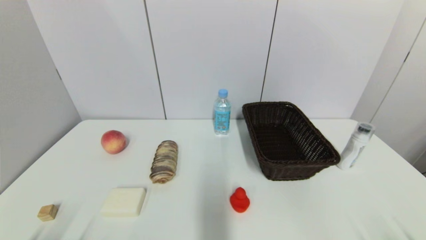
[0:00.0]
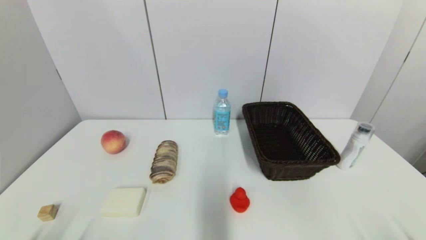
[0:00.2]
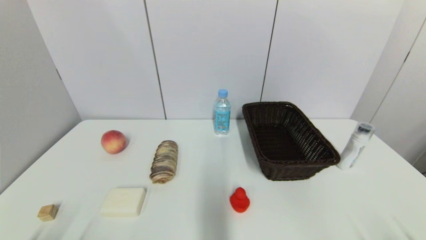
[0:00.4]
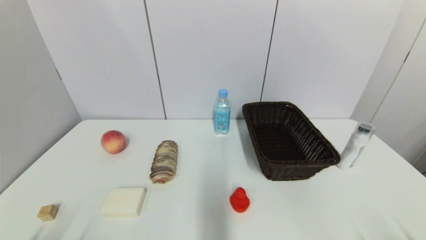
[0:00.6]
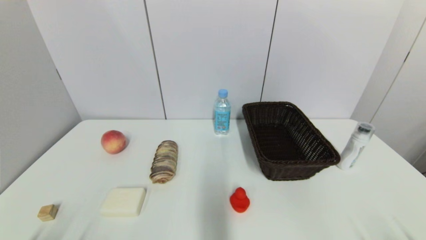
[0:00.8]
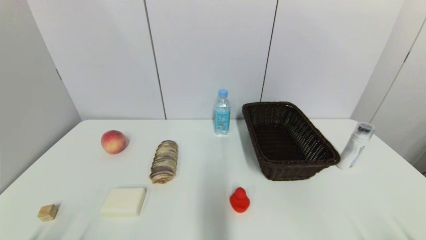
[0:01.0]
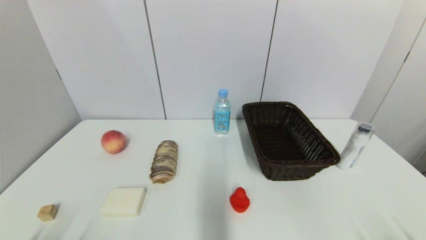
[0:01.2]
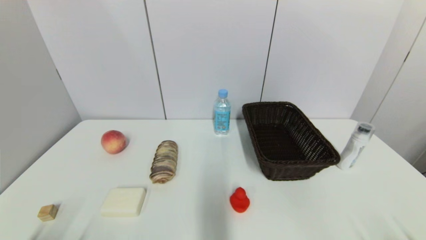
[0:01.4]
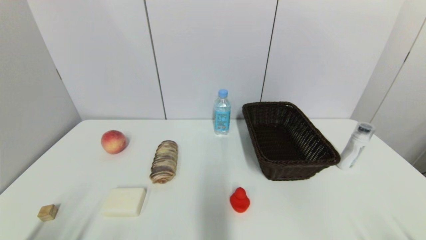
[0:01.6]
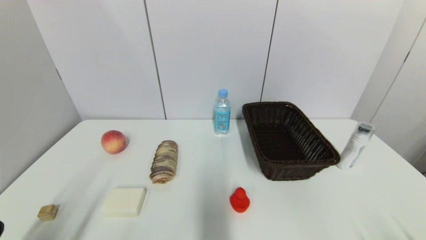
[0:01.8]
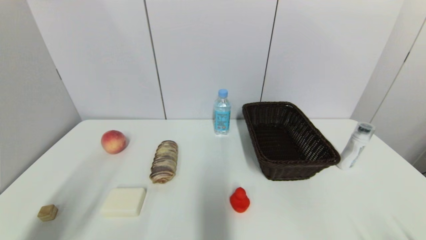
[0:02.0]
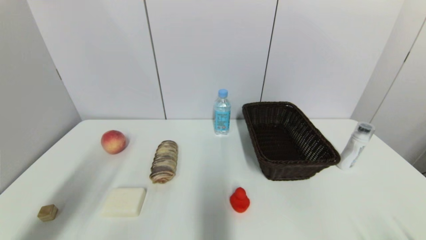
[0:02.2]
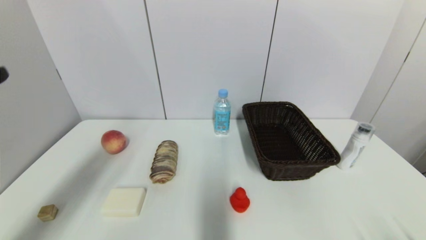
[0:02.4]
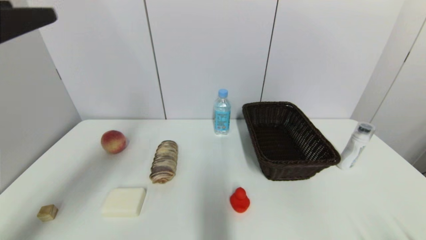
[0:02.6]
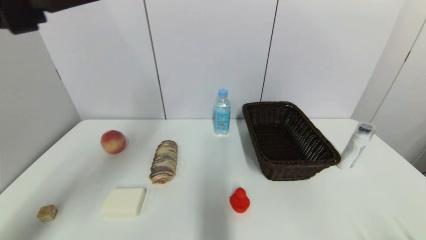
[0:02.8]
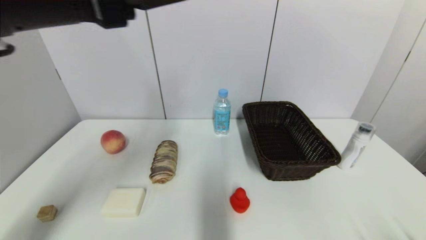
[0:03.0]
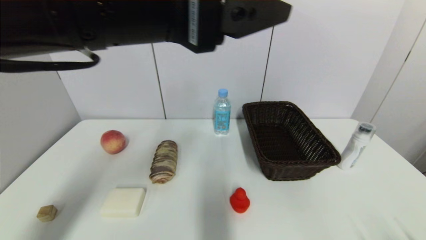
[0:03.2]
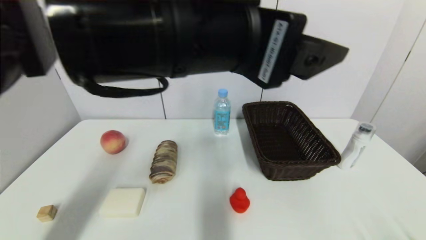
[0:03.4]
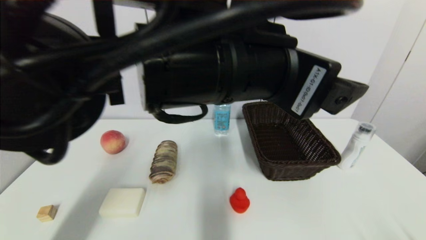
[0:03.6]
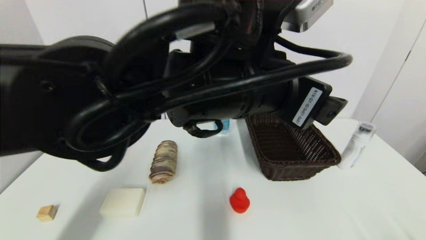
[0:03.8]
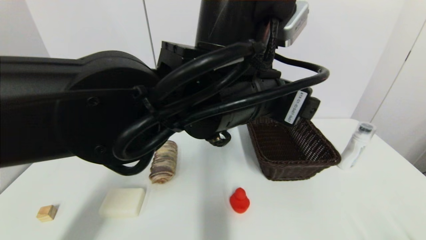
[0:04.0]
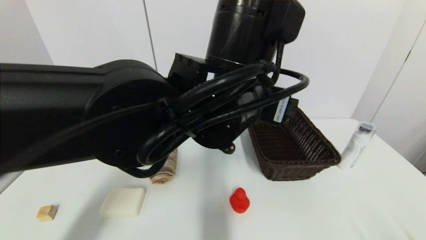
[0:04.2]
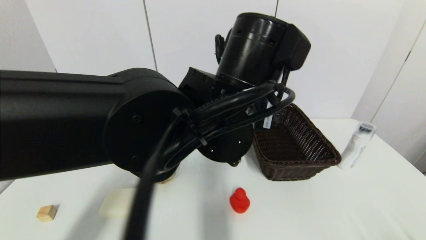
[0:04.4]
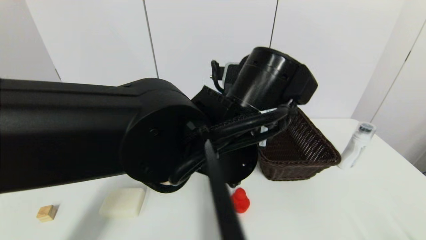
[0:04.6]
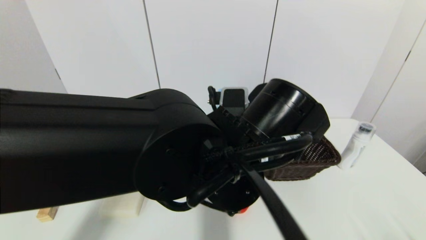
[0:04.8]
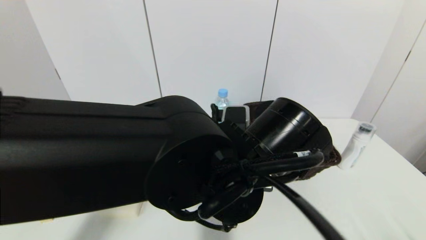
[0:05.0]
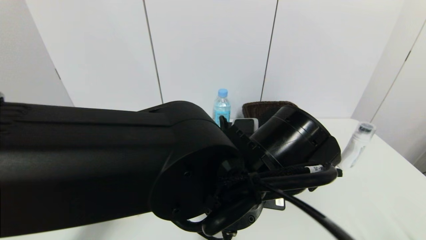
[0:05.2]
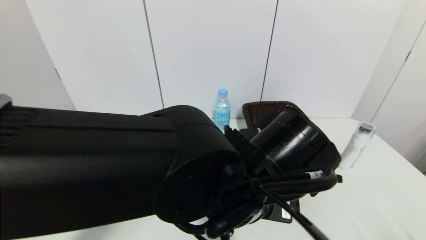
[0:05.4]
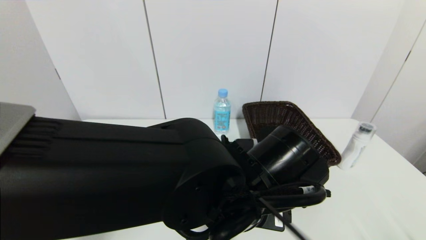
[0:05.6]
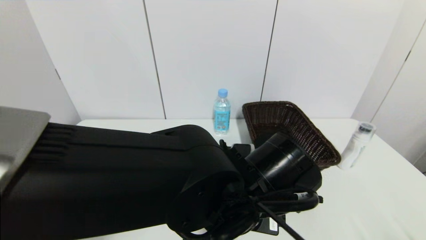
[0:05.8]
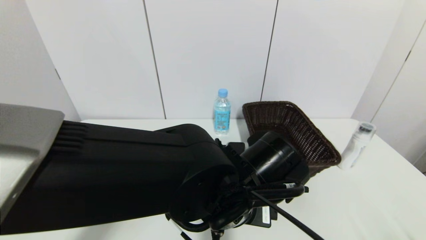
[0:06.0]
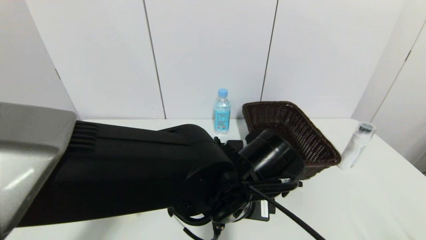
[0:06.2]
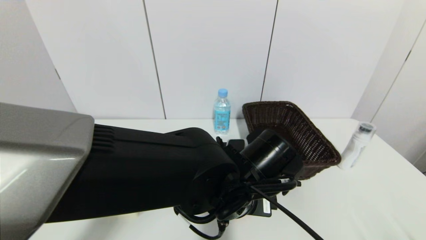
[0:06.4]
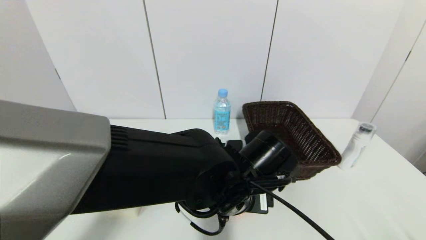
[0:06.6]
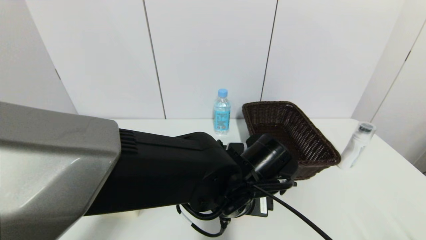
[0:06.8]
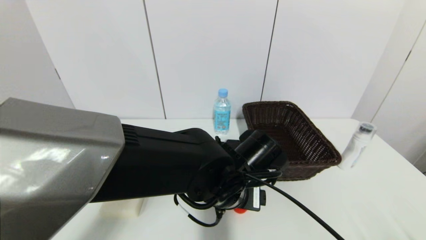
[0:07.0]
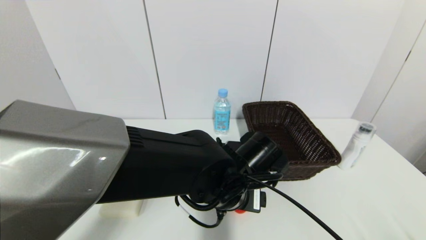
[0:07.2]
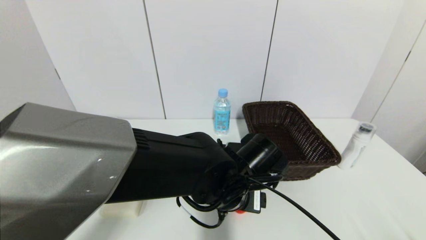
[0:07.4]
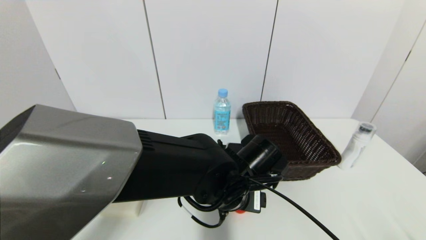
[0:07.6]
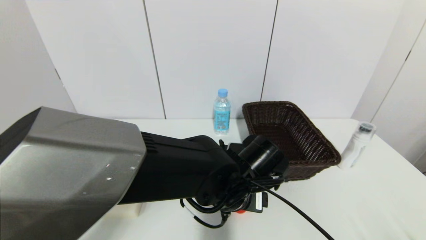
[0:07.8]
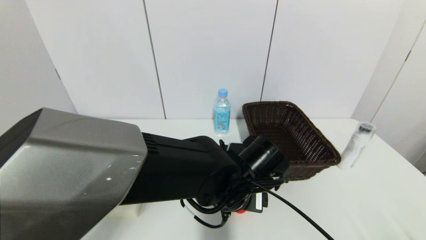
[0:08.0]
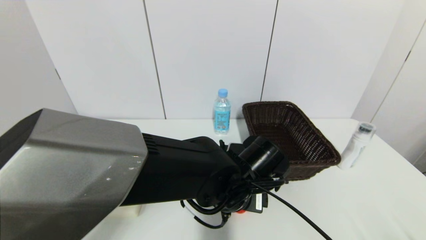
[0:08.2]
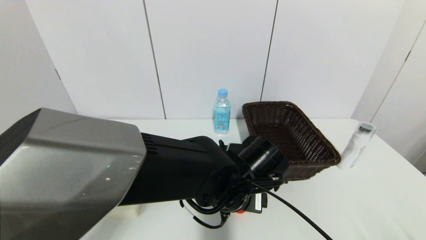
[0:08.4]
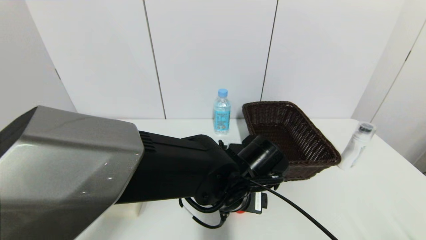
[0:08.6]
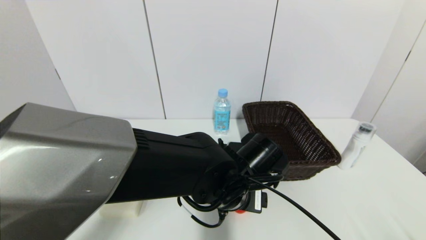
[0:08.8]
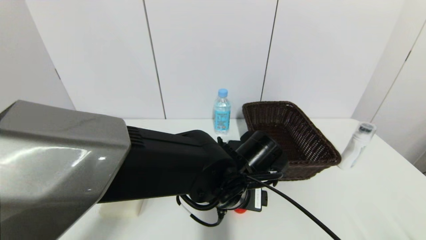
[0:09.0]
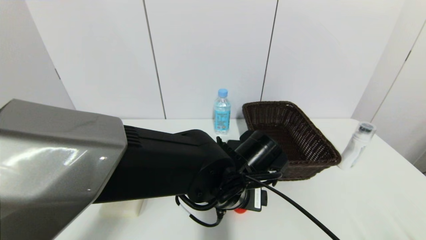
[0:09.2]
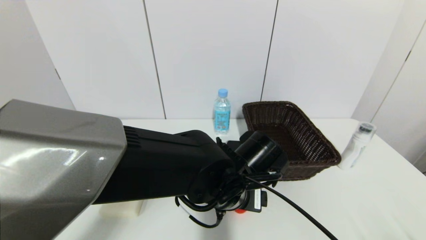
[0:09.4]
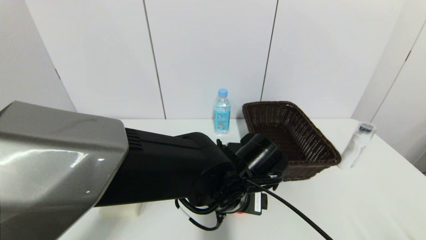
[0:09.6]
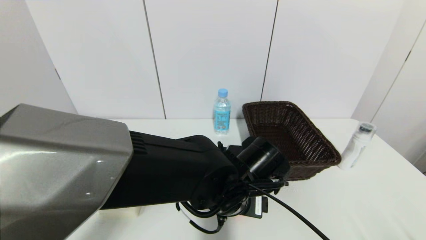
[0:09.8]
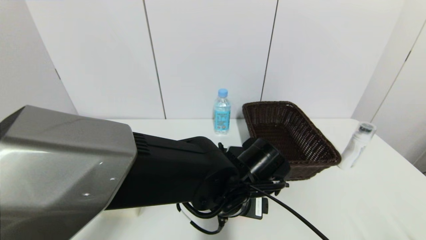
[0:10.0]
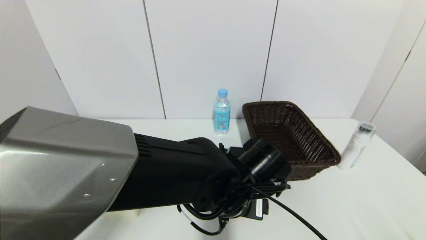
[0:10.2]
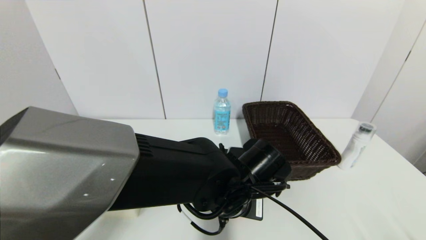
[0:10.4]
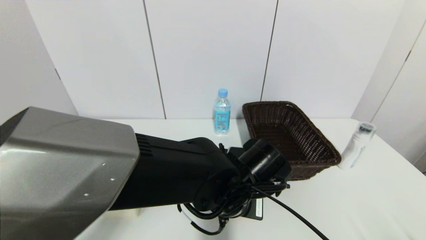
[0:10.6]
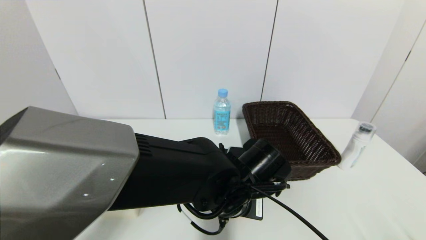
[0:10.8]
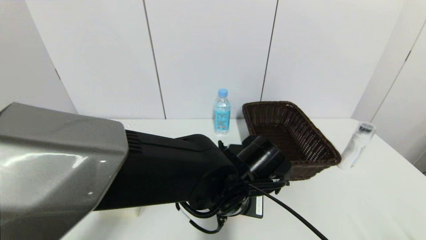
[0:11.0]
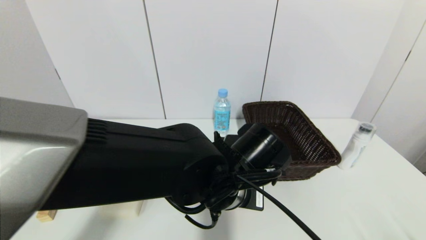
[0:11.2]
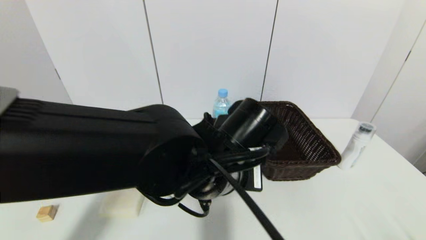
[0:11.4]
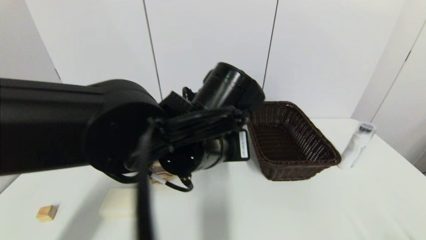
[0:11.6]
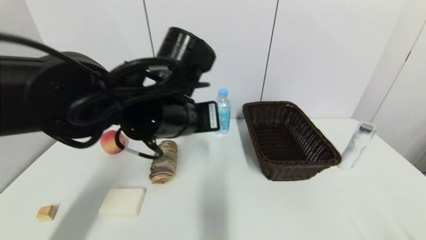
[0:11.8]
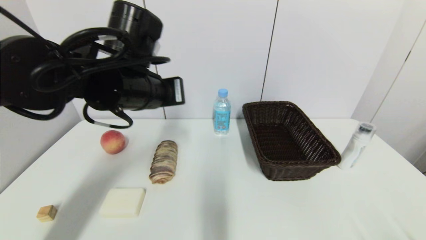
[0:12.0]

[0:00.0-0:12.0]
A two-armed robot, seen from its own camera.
Step, 0:01.8 to 0:11.0: Grasp the red duck with left gripper.
0:01.6 to 0:03.0: The left gripper moves upward, forward and to the right, about 35 cm.
0:03.0 to 0:04.4: The left gripper shifts some 20 cm to the right and downward.
0:04.4 to 0:06.0: The left gripper moves downward, some 10 cm.
0:06.0 to 0:07.6: The left gripper ends up roughly 5 cm from where it was.
0:07.6 to 0:09.0: Both grippers stay about where they are.
0:09.0 to 0:10.4: The left gripper closes up.
0:10.4 to 0:12.0: The left gripper heads upward, to the left and forward, covering some 25 cm, and closes up.

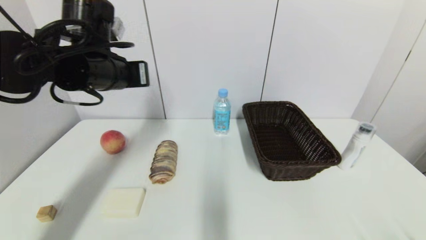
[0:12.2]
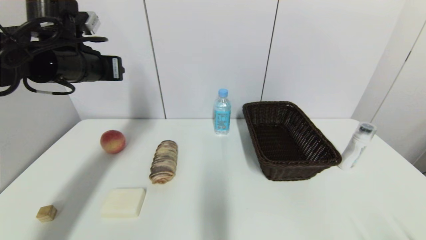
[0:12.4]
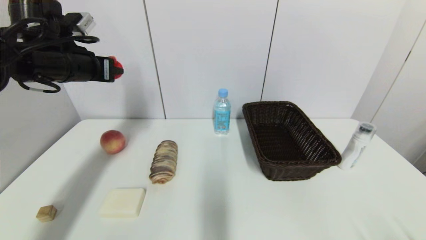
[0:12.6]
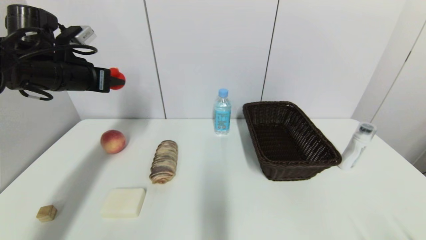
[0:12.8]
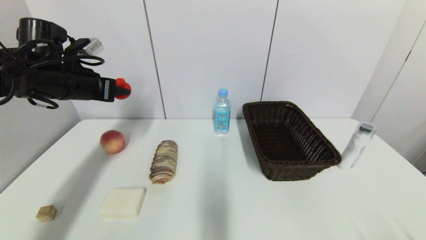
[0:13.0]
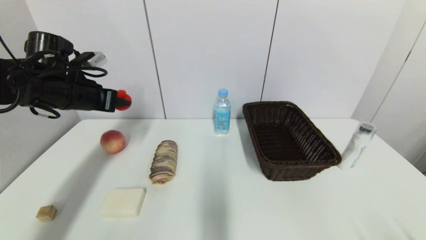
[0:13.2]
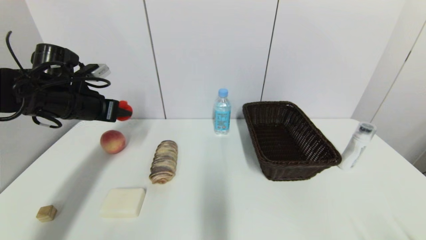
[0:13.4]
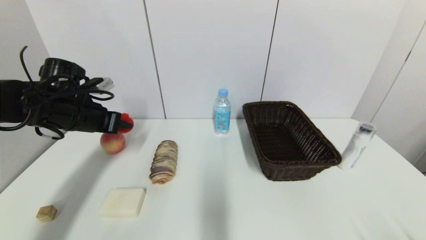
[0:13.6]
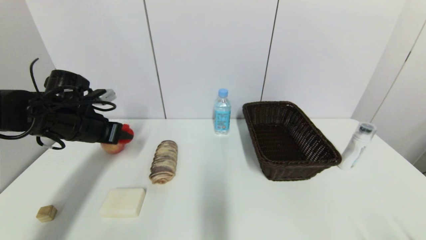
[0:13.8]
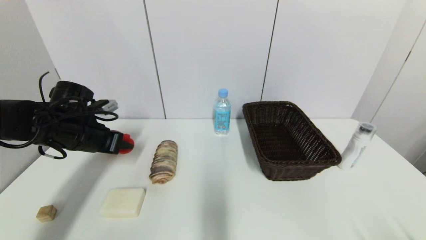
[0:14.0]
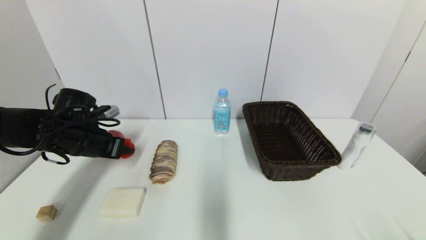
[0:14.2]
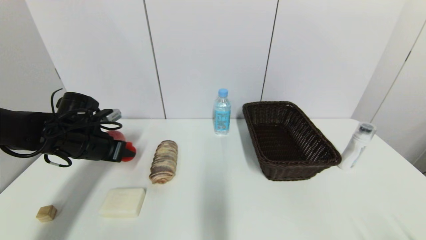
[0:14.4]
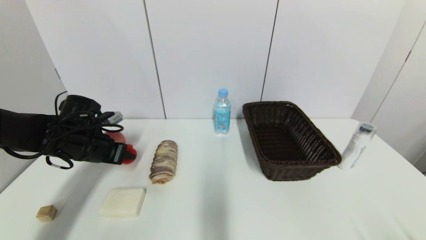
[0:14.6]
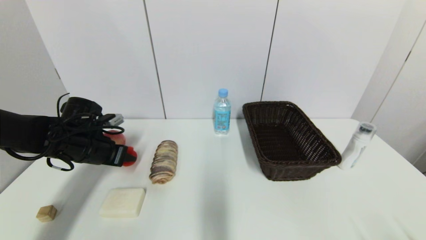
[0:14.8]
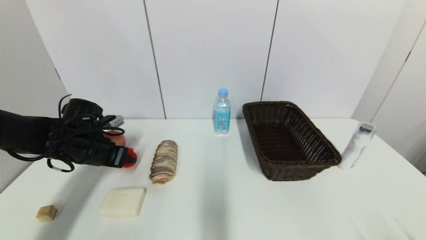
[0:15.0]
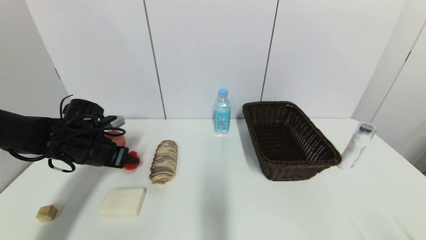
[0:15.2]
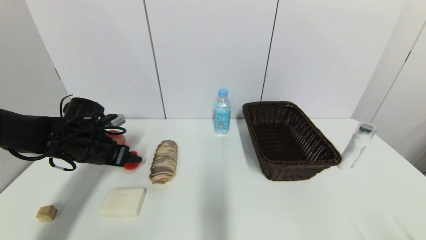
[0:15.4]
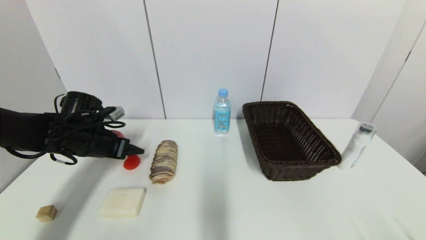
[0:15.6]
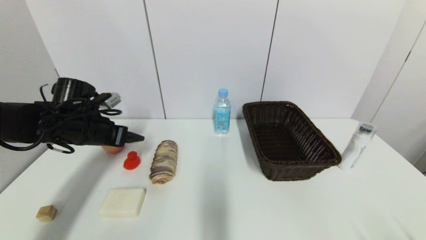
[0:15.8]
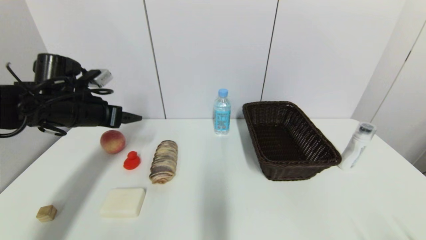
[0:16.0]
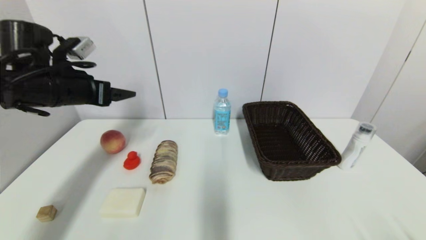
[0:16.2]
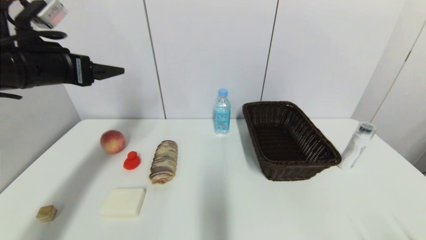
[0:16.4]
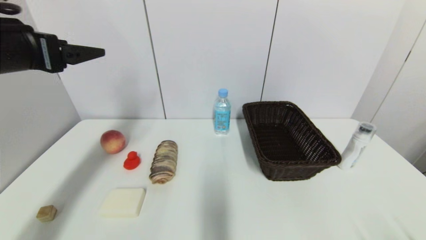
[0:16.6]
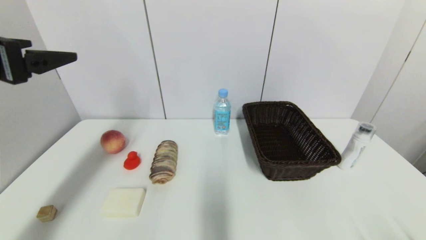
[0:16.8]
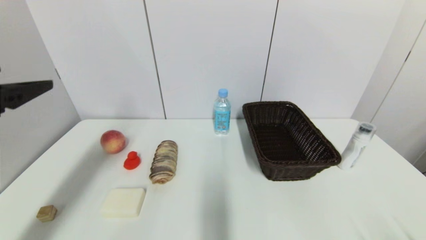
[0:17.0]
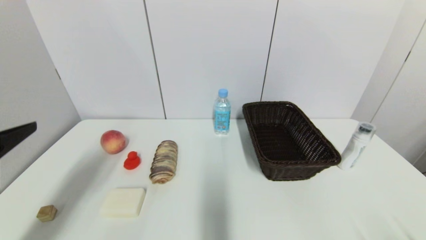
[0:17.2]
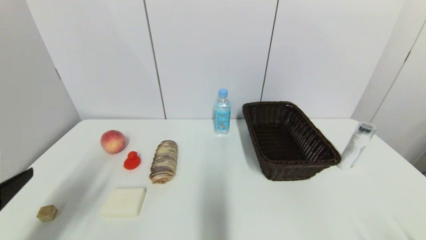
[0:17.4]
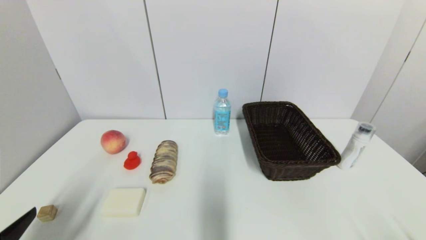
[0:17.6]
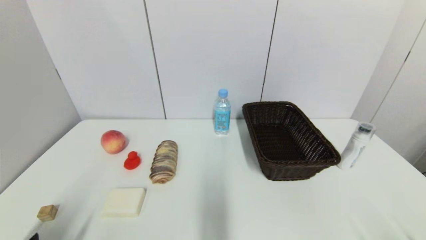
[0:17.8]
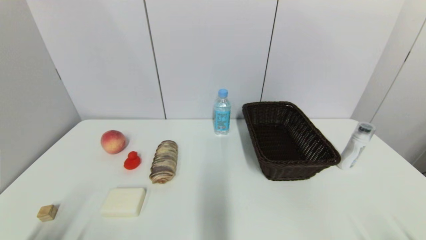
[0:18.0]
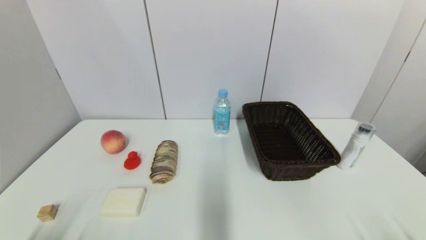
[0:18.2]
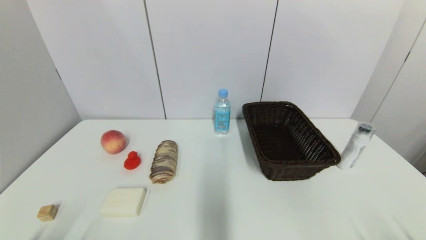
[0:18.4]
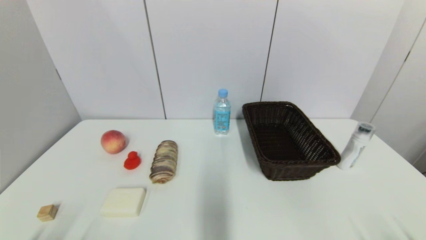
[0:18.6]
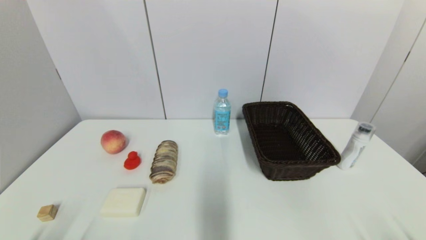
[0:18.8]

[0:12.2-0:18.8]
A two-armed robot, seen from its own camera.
Step, 0:12.2 to 0:15.4: Place the red duck on the table with left gripper.
0:12.2 to 0:13.8: The left gripper travels downward and to the left by roughly 15 cm.
0:13.8 to 0:15.4: The left gripper goes about 5 cm downward, and opens up.
0:15.4 to 0:17.2: The left gripper is displaced backward and upward by approximately 25 cm, and opens its fingers.
0:17.2 to 0:18.8: The left gripper is displaced downward and backward by some 25 cm.
